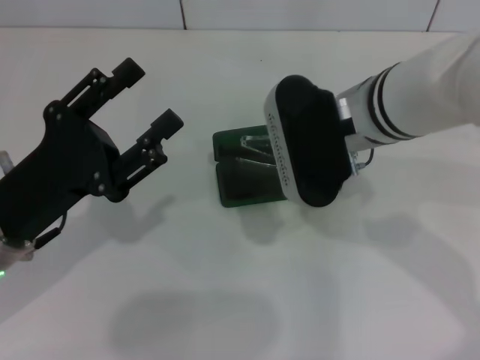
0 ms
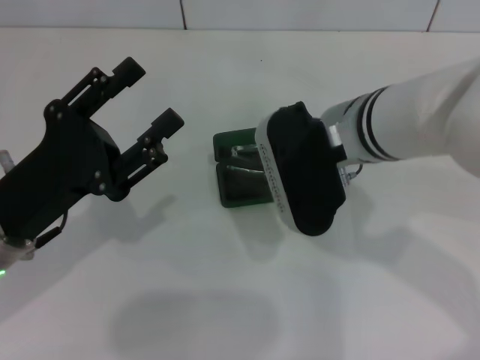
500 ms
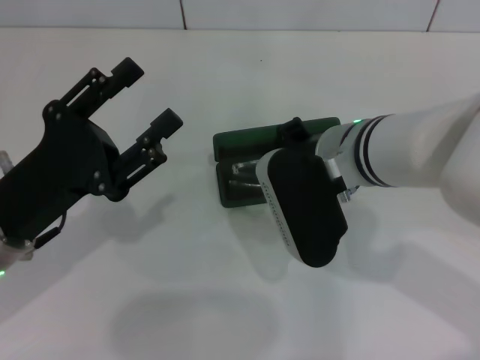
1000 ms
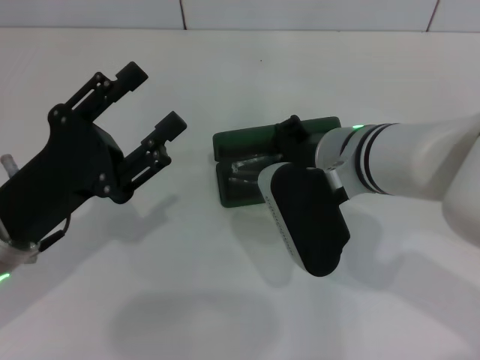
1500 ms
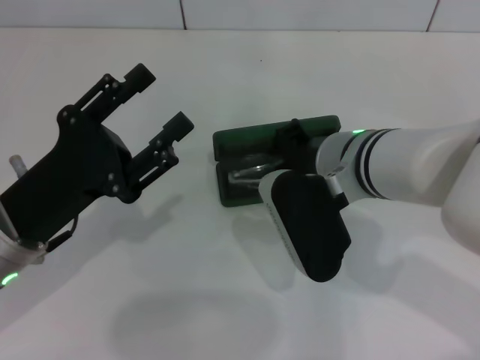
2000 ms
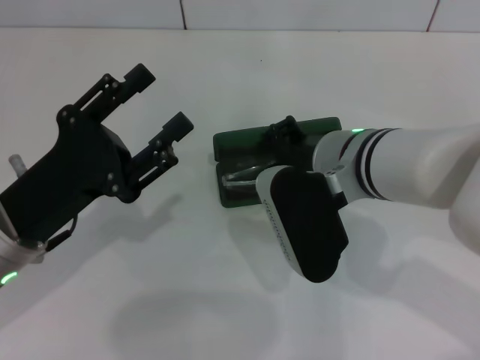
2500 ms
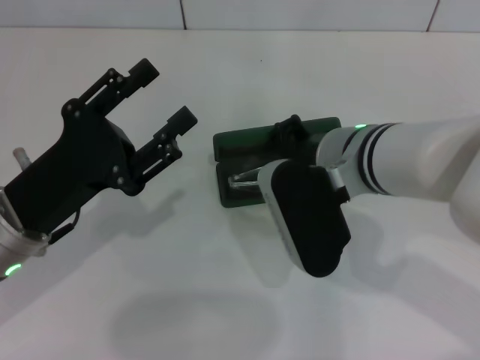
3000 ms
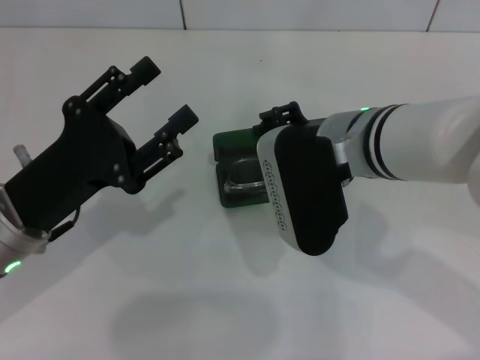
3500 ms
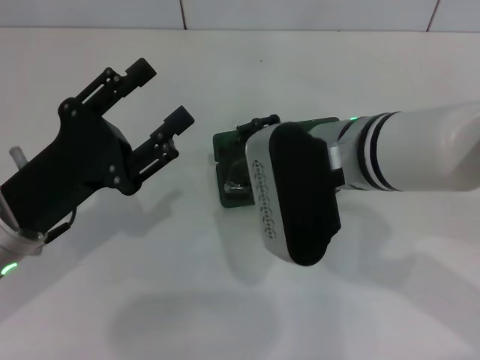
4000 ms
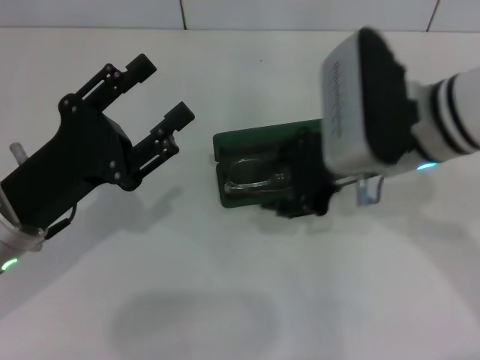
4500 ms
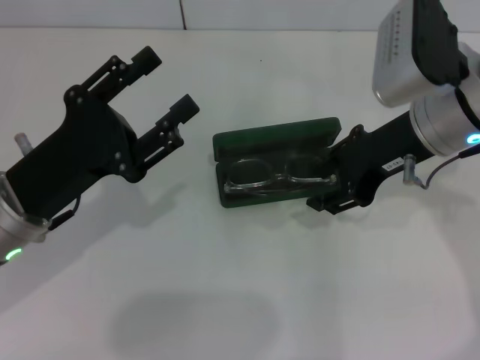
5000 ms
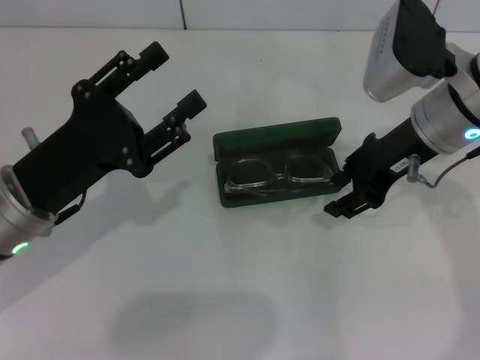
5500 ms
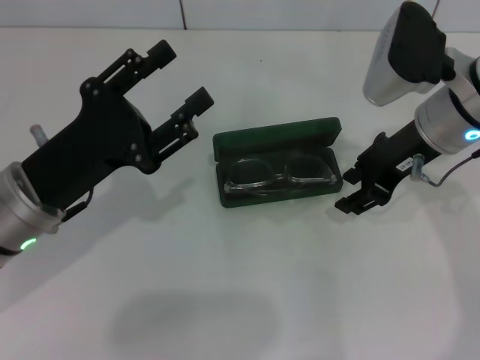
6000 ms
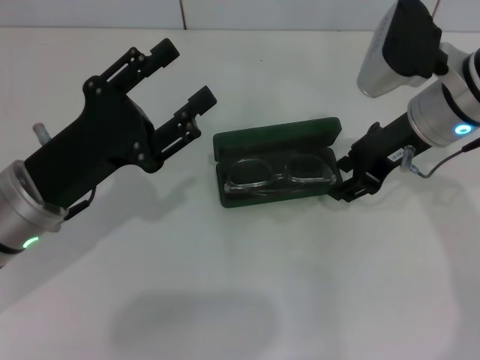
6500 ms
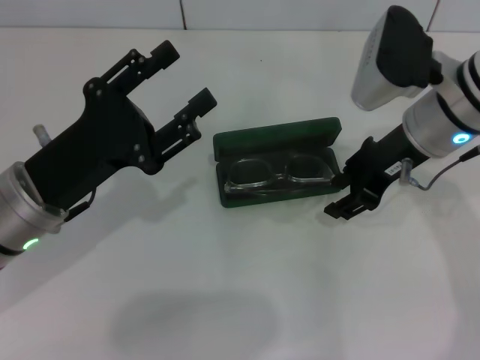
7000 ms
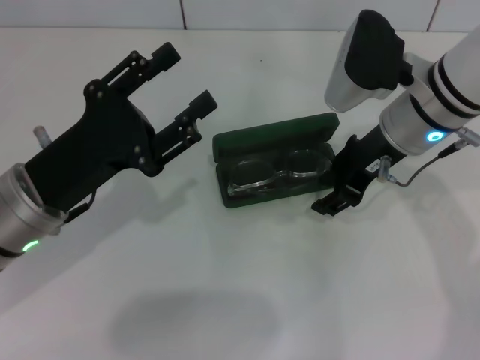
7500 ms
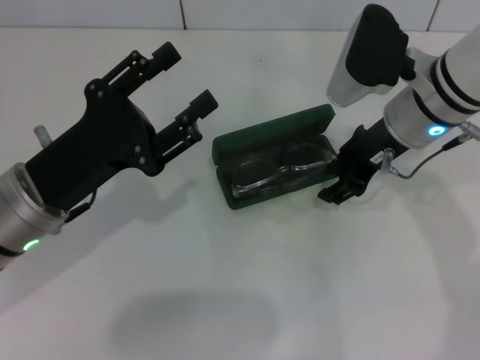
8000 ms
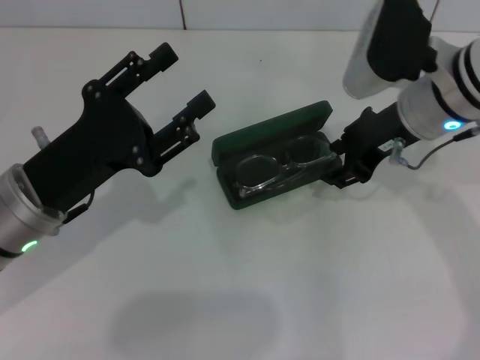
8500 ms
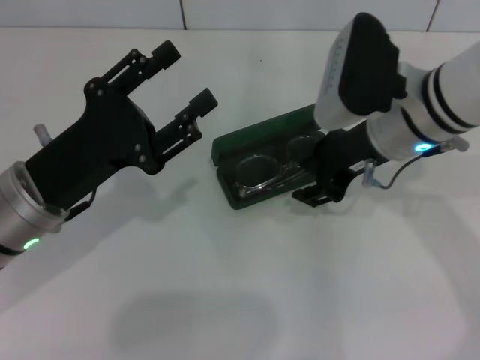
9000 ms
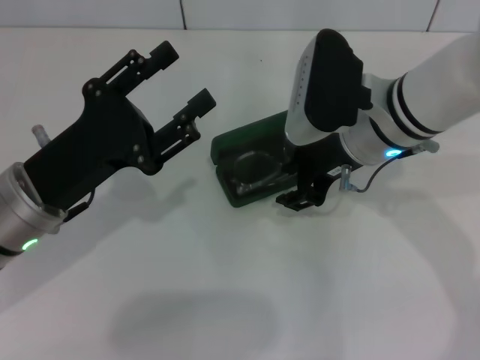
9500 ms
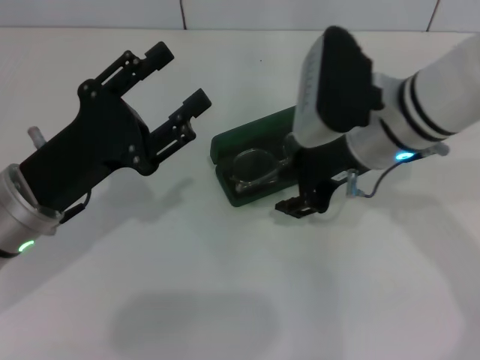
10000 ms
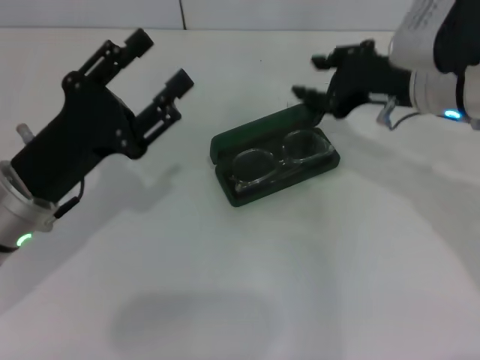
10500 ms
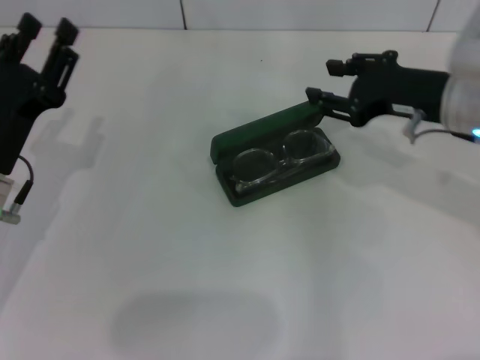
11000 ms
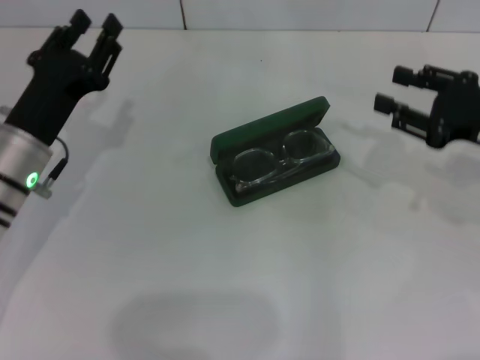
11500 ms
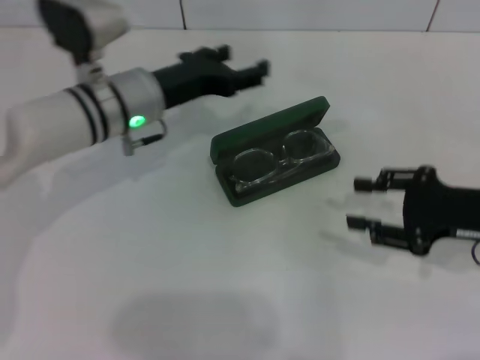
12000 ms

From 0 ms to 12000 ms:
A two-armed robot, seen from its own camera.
Step, from 0 ms to 8500 ms: Put the glasses into the case with your right hand.
From 0 ms to 2000 ms: The right gripper shifts by some 5 cm.
From 2000 ms to 4000 ms: The right gripper opens.
From 4000 ms to 6000 ms: The right gripper moves to the right and forward, roughly 10 cm.
From 6000 ms to 8000 ms: The grippers make only small movements.
From 8000 ms to 10000 ms: There are only small adjustments of the grippers.
From 10000 ms to 12000 ms: The left gripper is displaced forward and to the right by approximately 15 cm, while the right gripper heads to the right and downward, covering about 20 cm.

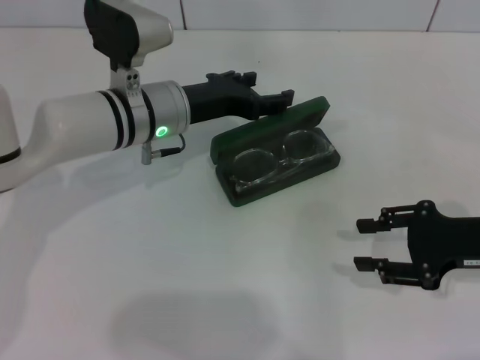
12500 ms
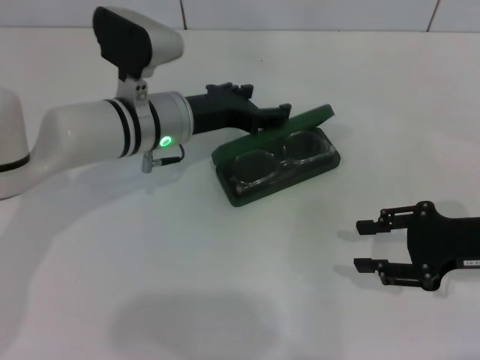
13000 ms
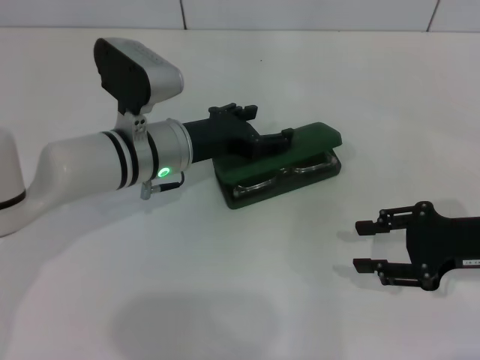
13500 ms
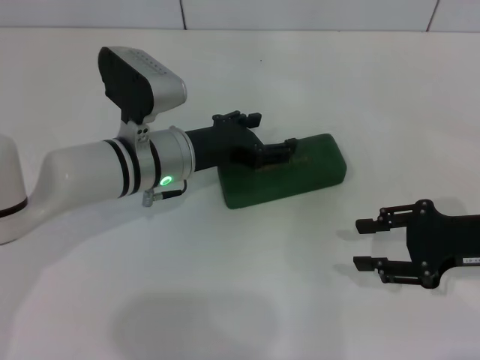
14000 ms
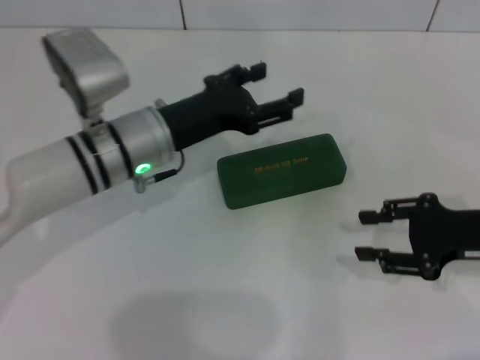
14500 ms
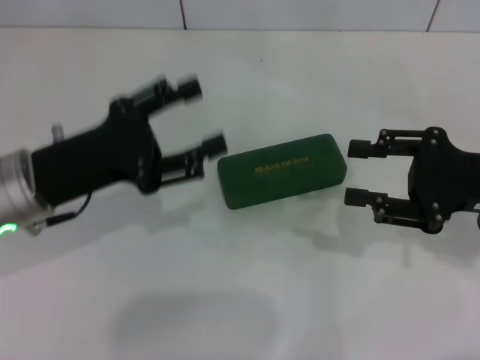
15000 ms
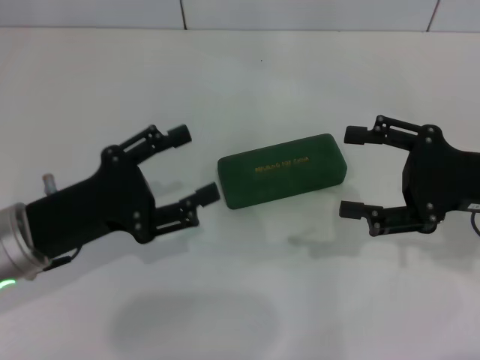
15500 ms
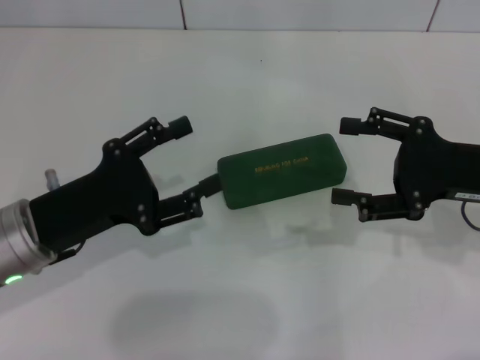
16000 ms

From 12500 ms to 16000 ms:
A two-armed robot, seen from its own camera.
From 12500 ms to 14500 ms: The grippers make only small movements.
From 14500 ms to 16000 ms: The left gripper is displaced to the left and backward by roughly 15 cm; the right gripper shifts by some 5 cm, and opens its fingers.
